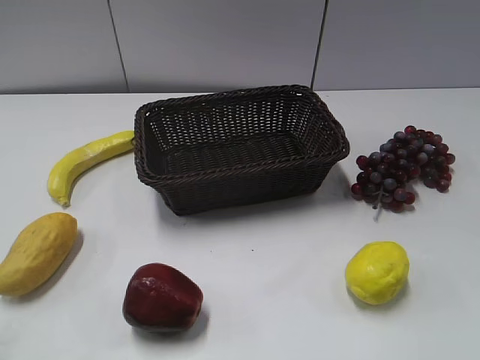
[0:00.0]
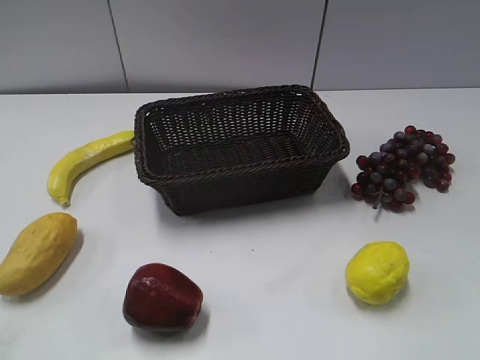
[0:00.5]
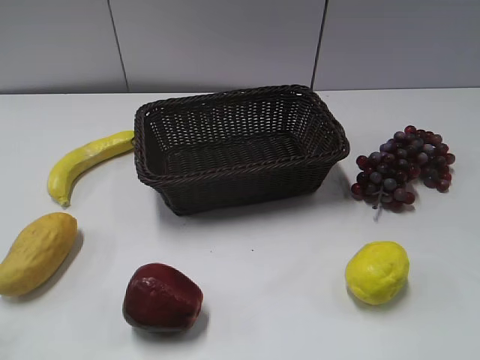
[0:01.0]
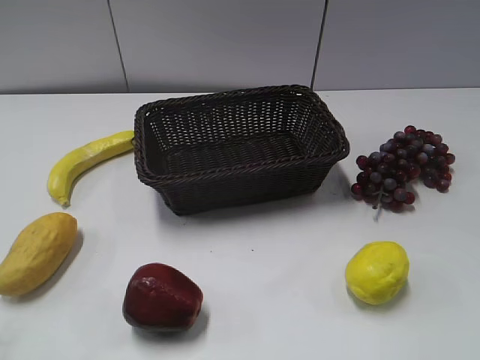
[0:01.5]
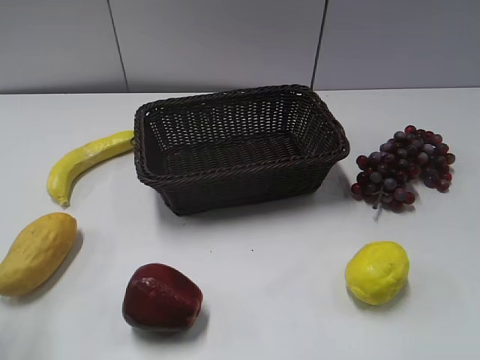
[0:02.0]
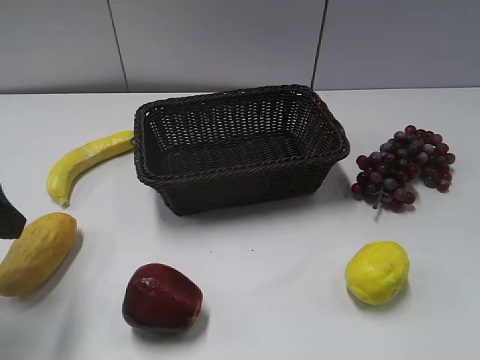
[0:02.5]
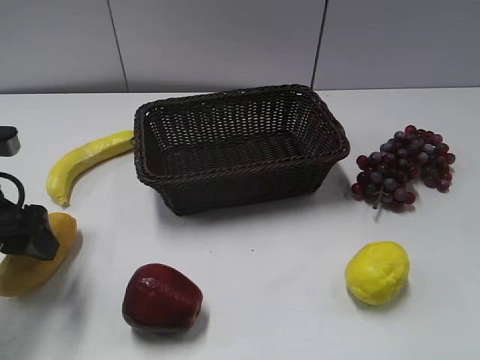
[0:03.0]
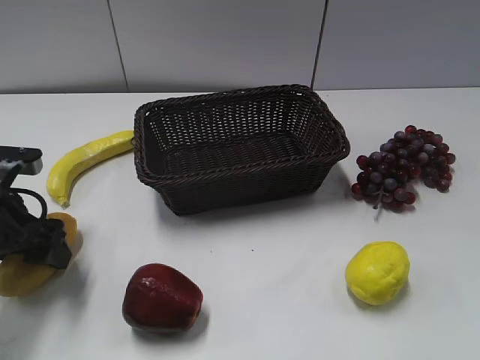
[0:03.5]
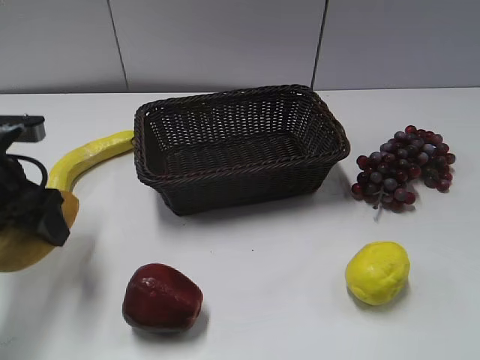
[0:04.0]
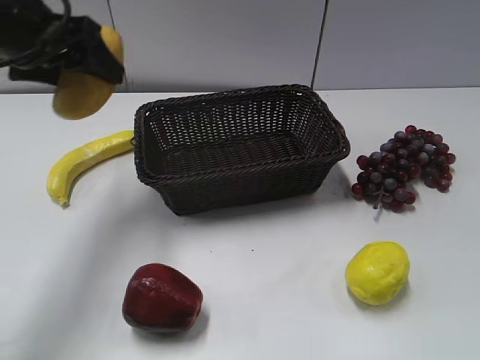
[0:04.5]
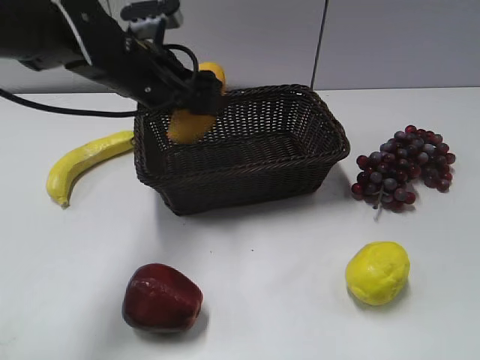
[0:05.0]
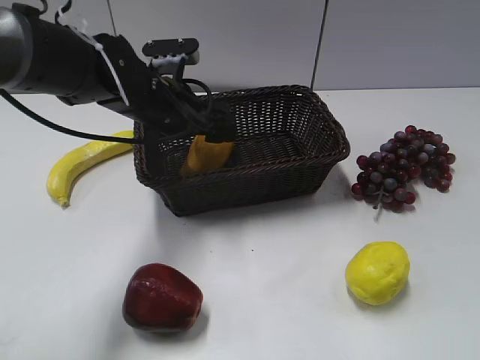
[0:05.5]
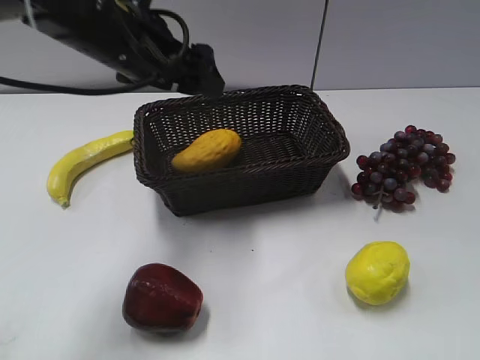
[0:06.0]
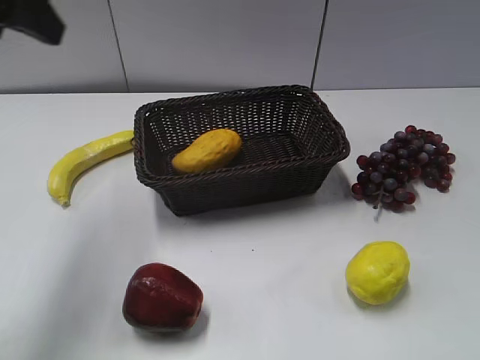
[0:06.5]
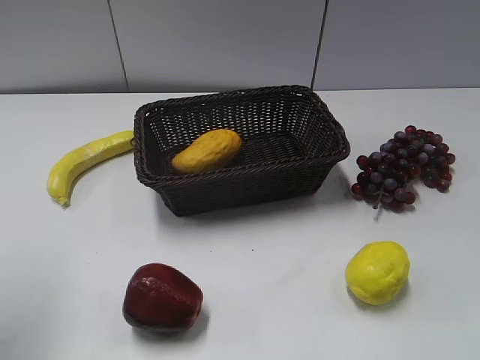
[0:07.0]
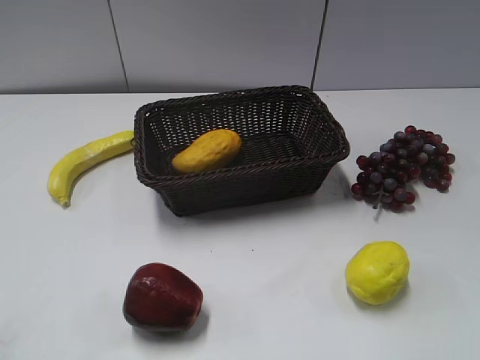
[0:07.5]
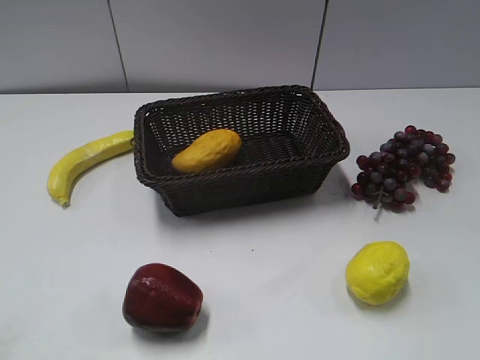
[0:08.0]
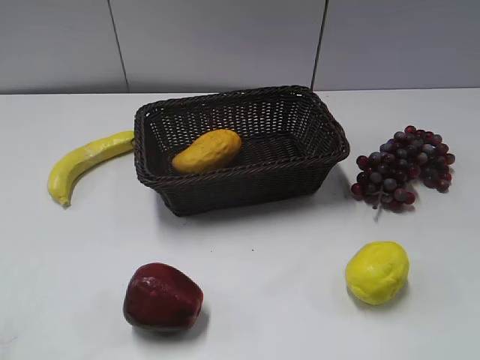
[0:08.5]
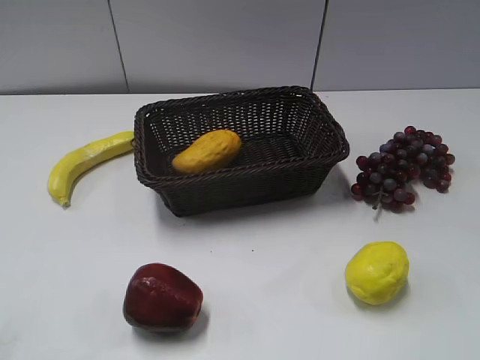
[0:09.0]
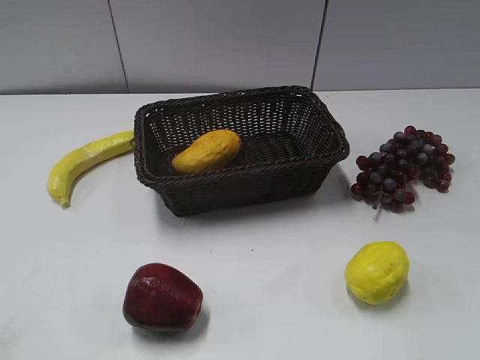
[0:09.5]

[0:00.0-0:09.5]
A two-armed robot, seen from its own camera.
Step, 0:02.5 to 0:03.5: Grasp the mango with left gripper.
Step, 0:04.0 to 0:05.5: Place the mango in the basket with left gripper.
0:02.0 to 0:04.0: The left gripper shifts approximately 20 cm forward and downward, and closes.
0:04.0 to 0:05.5: The left gripper moves to the right and forward, roughly 20 cm, and opens.
0:05.5 to 0:07.5: The left gripper moves backward and to the left, some 40 cm, and closes.

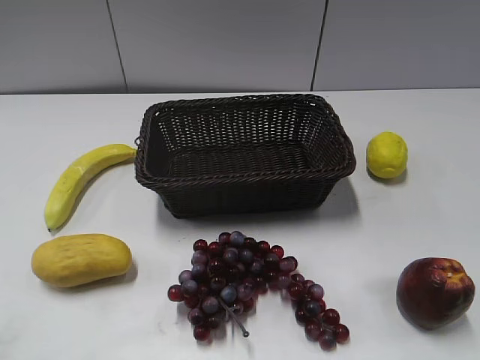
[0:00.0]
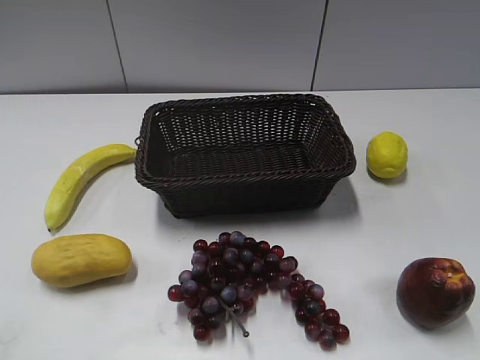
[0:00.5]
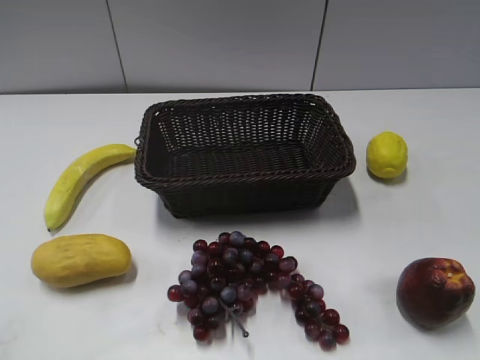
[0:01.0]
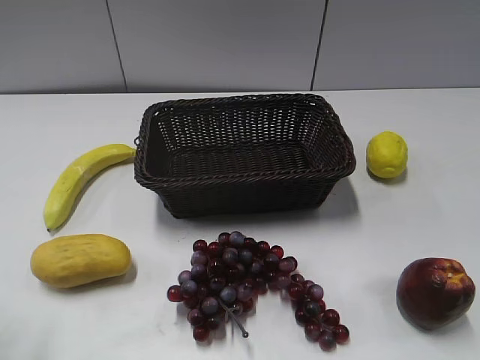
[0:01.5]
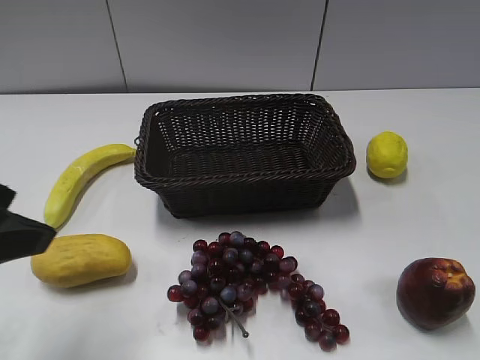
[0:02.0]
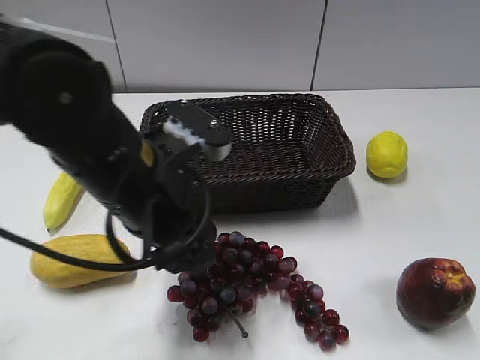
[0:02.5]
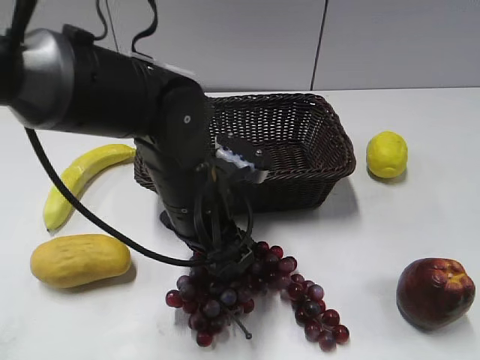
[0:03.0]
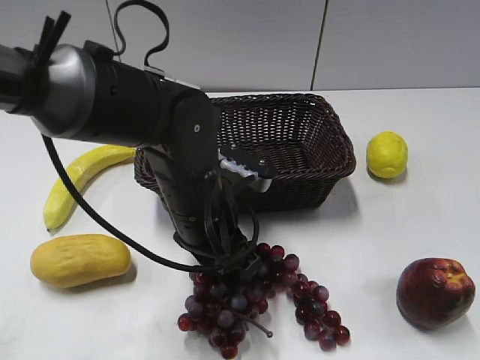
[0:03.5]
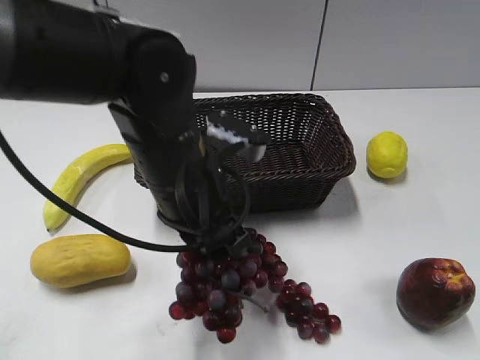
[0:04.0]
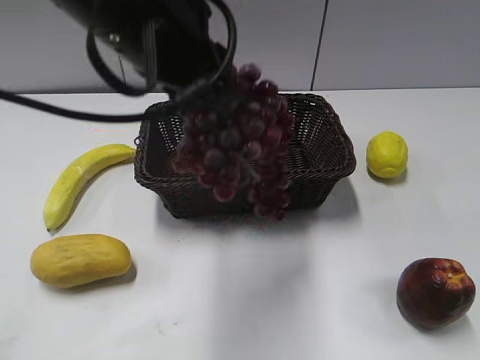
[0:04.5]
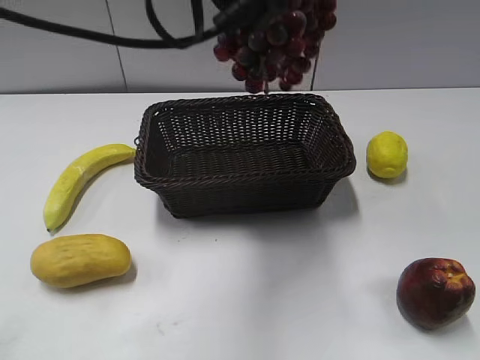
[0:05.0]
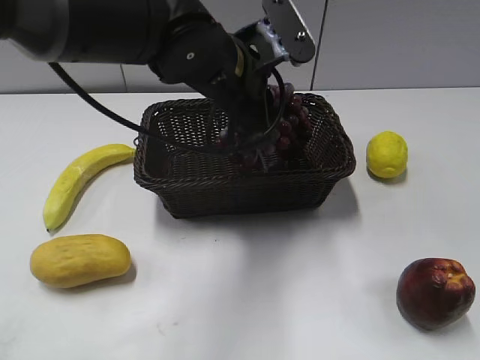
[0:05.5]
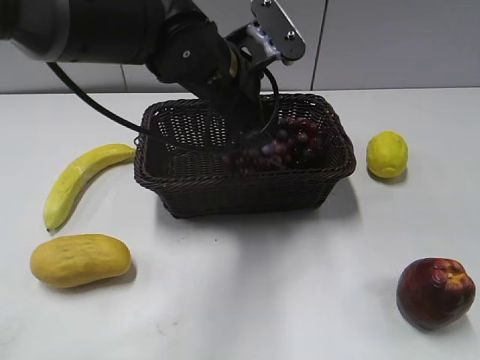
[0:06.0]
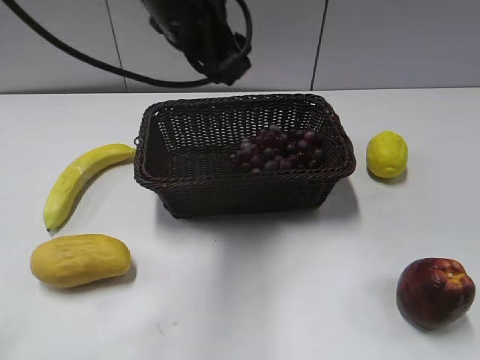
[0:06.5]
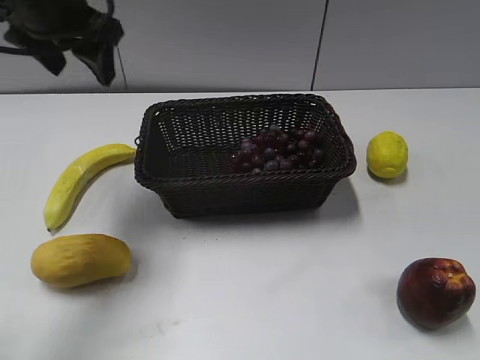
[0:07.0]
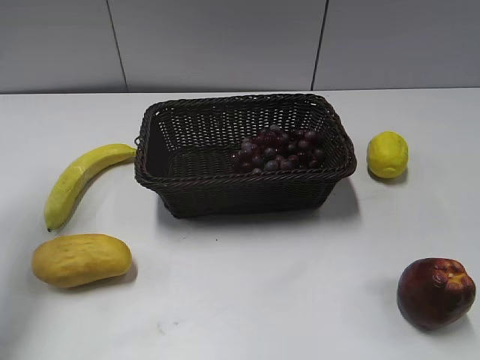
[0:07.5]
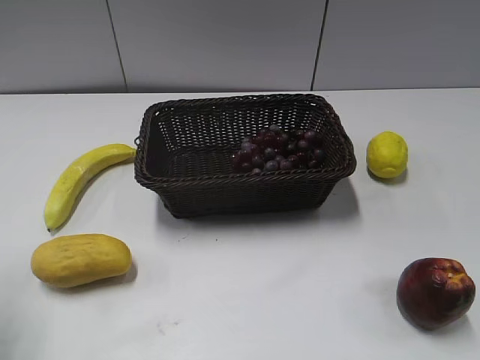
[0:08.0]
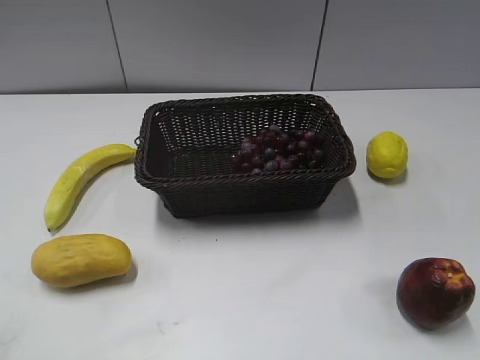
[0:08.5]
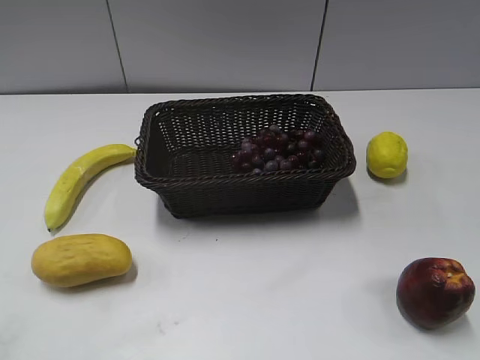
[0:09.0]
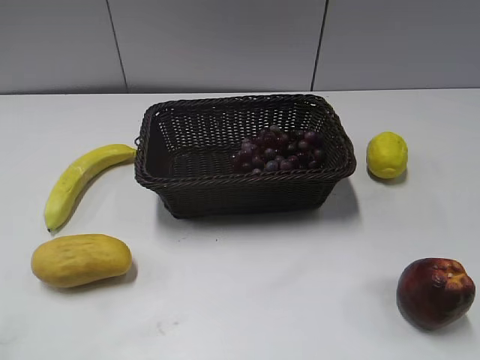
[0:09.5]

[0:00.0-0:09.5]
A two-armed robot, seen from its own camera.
Step, 0:02.0 to 0:03.0: Grasp the grape with left gripper.
Step, 0:04.0 to 0:06.0: Place the grape in the basket with left gripper.
0:02.0 to 0:04.0: The left gripper shifts about 20 cm to the right and forward, and closes.
0:04.0 to 0:05.5: The left gripper travels forward by some 10 cm, and goes upward and returns, roughly 15 cm each way.
0:05.5 to 0:07.5: The left gripper moves to the left, about 30 cm, and opens its fingers.
0:07.5 to 0:09.5: The left gripper is displaced backward by some 30 cm.
